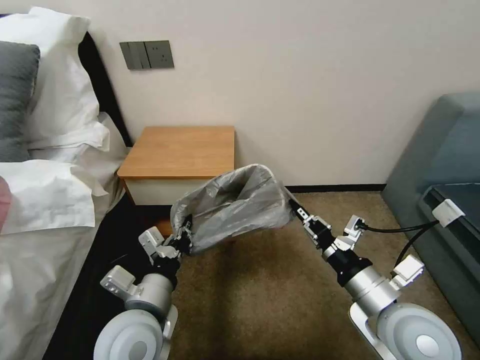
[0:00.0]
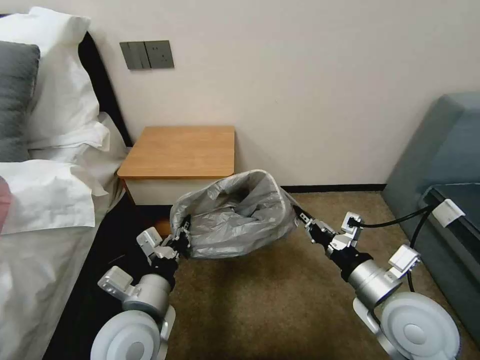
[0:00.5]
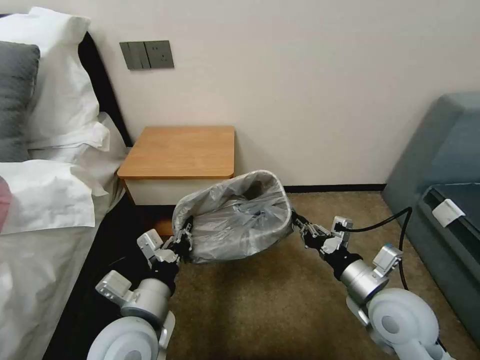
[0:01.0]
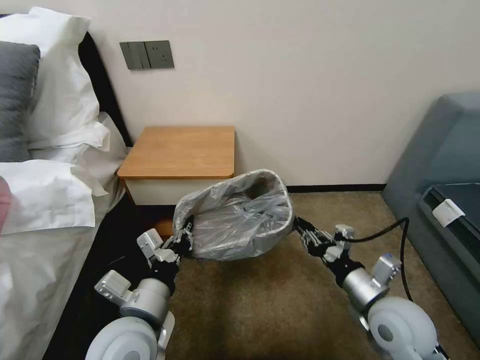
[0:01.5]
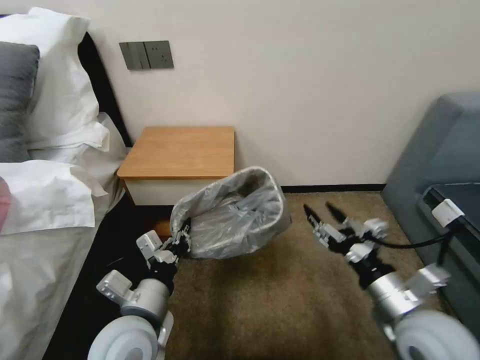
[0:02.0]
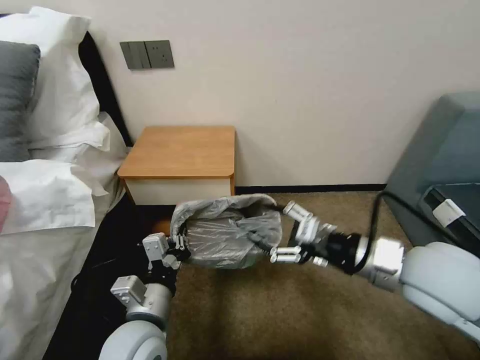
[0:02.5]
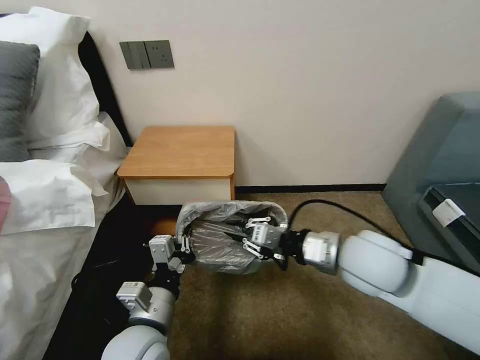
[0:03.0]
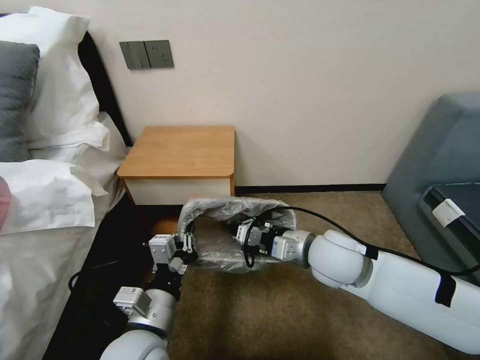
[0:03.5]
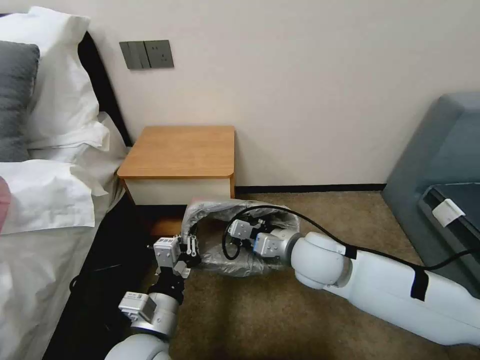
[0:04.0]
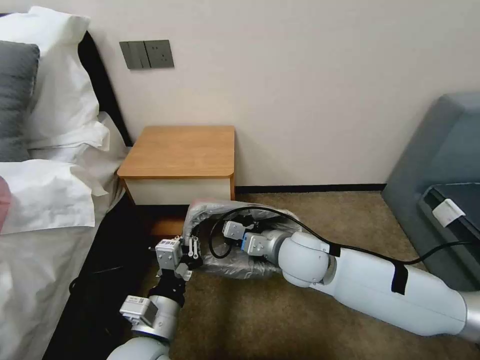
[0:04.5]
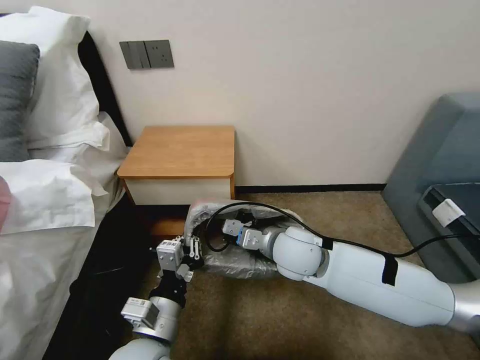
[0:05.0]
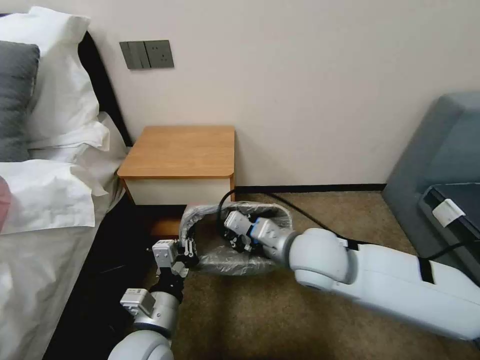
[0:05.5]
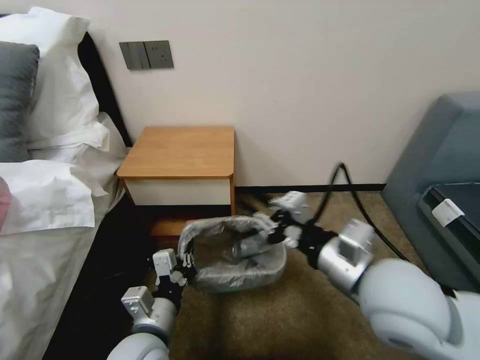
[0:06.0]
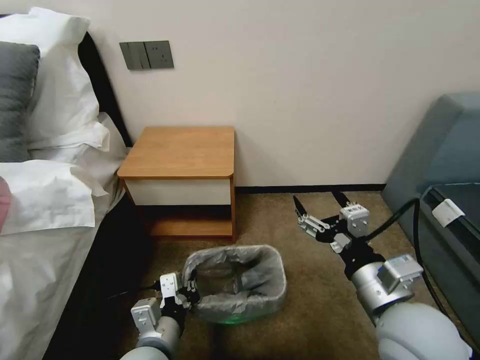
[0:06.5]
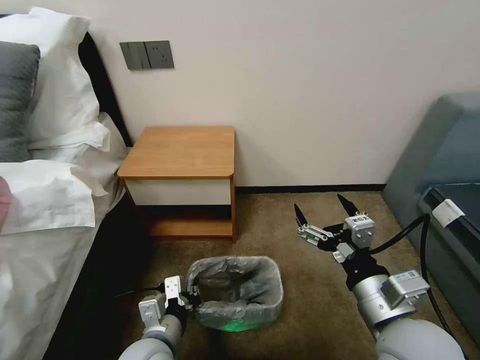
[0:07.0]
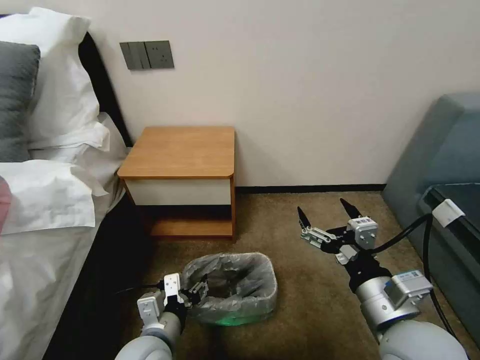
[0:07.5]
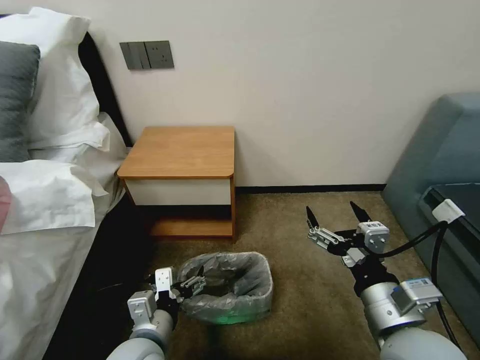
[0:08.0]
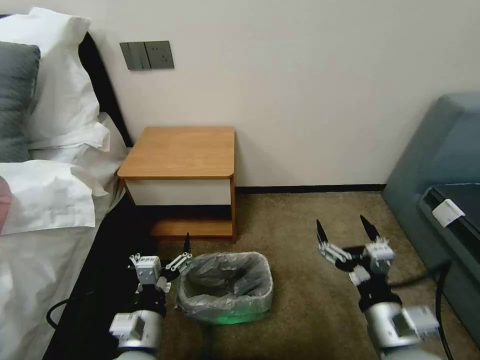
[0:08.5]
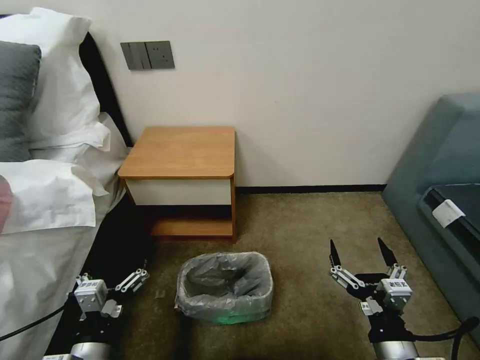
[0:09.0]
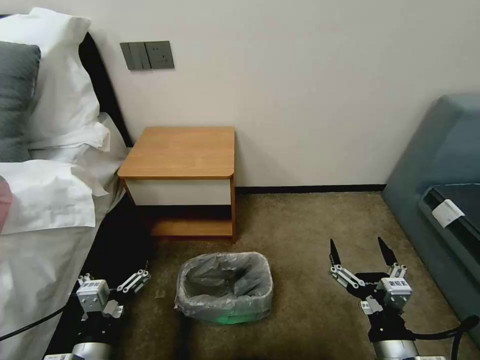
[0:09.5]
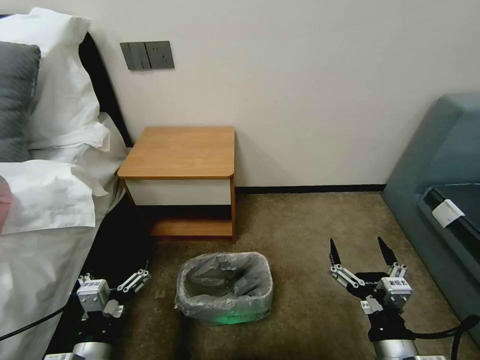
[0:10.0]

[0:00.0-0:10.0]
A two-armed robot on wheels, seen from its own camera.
Task of the whole recording: Pick up the garbage bag from the table and place it over the trash can.
0:00.0 to 0:02.0: The right gripper opens its fingers.
0:02.0 to 0:04.0: The right gripper goes approximately 20 cm to the left and forward, and closes up.
0:04.0 to 0:06.0: The right gripper heads backward, upward and to the right, covering about 15 cm.
0:06.0 to 0:08.0: The right gripper is displaced downward and backward by approximately 10 cm, and opens its fingers, while the left gripper opens its fingers.
0:08.0 to 0:10.0: The left gripper travels to the left and backward by roughly 10 cm, while the right gripper travels downward and backward by approximately 10 cm.

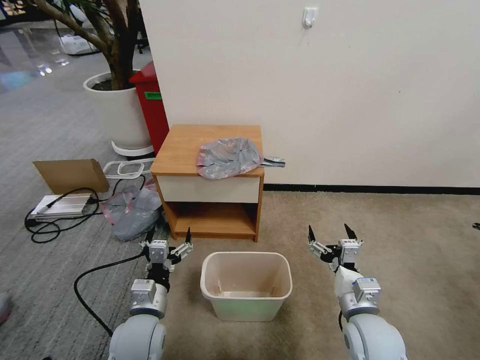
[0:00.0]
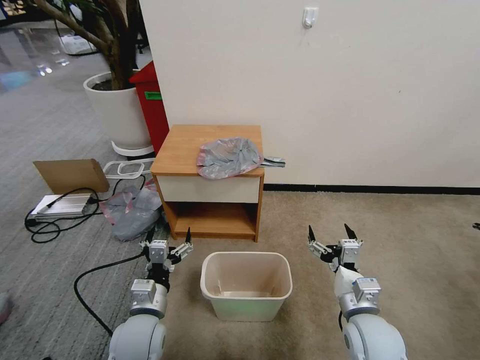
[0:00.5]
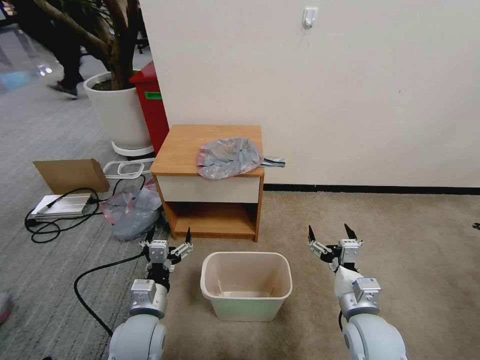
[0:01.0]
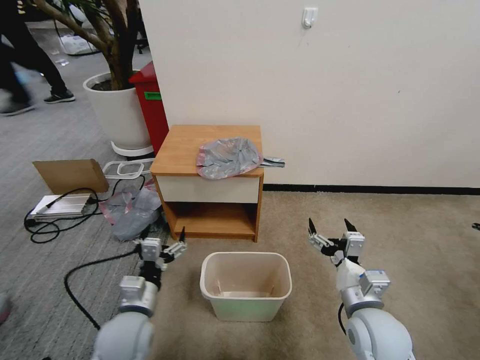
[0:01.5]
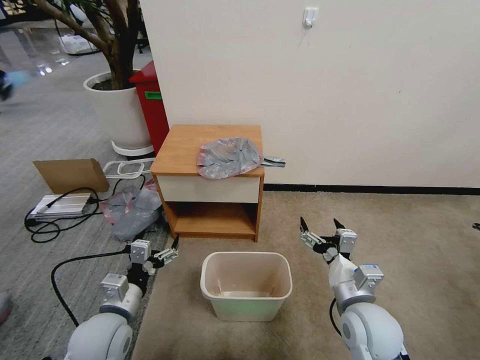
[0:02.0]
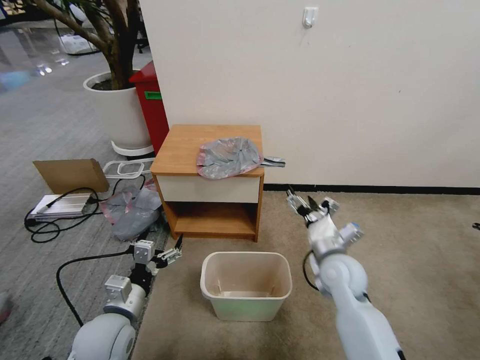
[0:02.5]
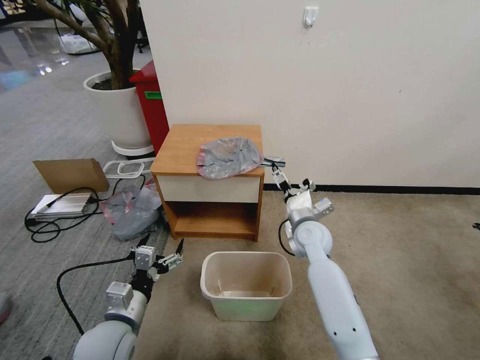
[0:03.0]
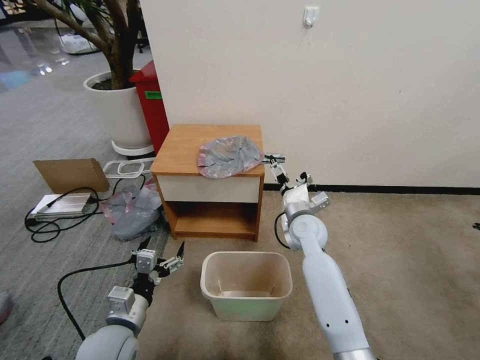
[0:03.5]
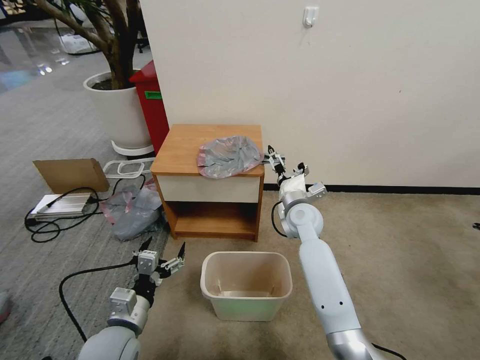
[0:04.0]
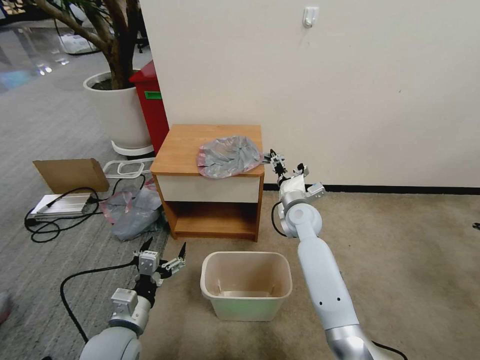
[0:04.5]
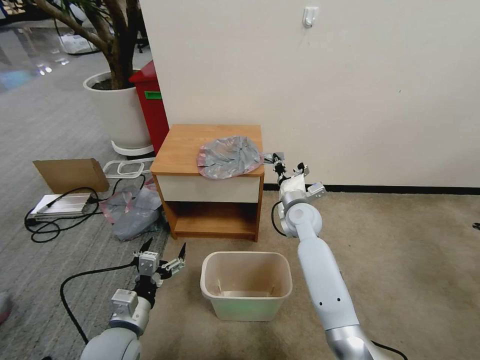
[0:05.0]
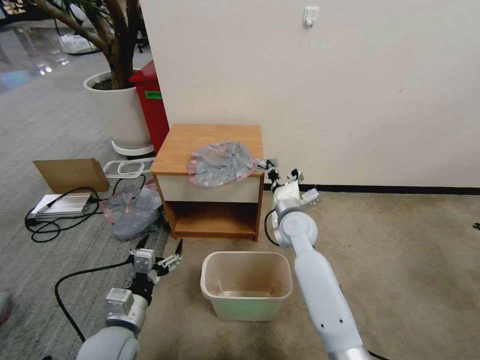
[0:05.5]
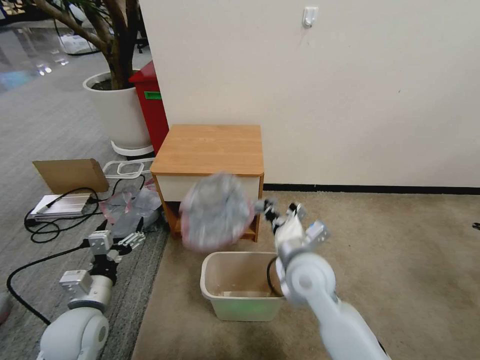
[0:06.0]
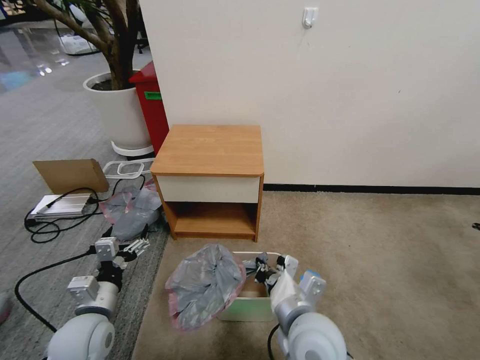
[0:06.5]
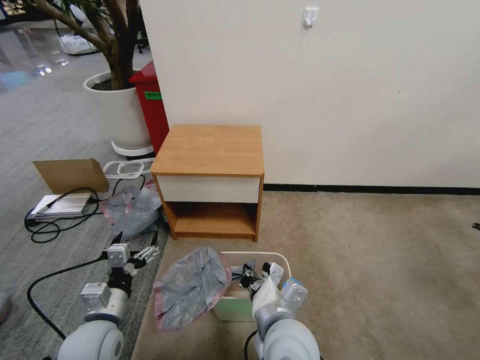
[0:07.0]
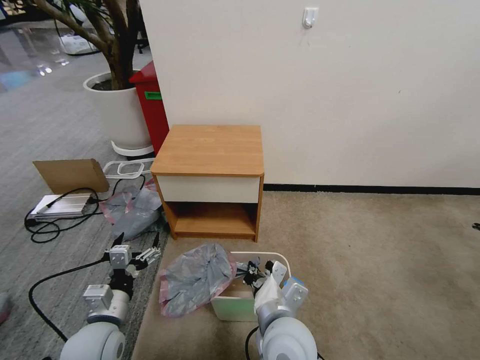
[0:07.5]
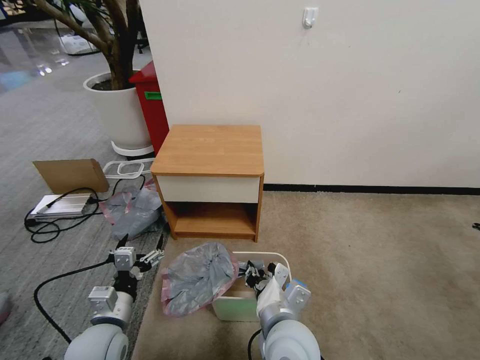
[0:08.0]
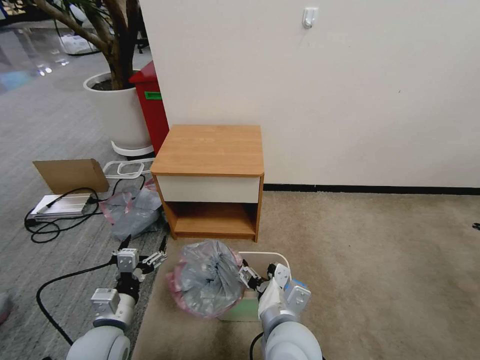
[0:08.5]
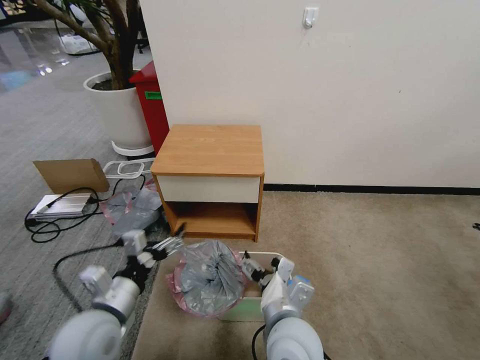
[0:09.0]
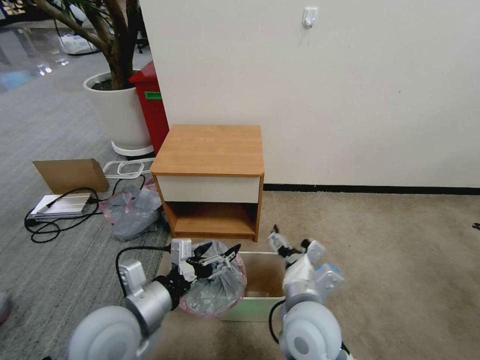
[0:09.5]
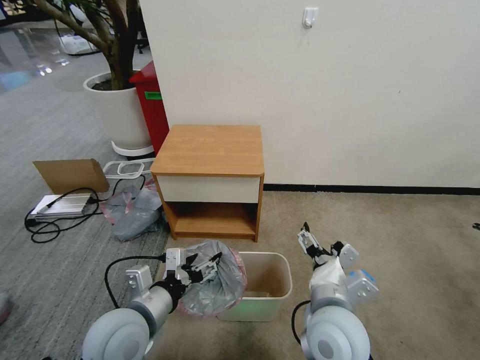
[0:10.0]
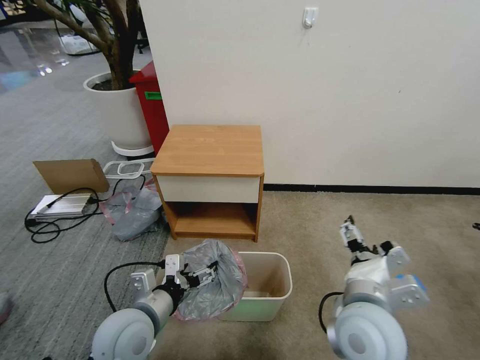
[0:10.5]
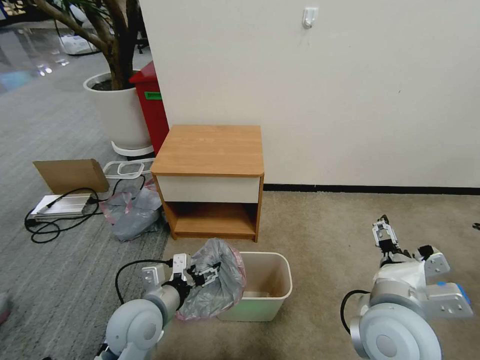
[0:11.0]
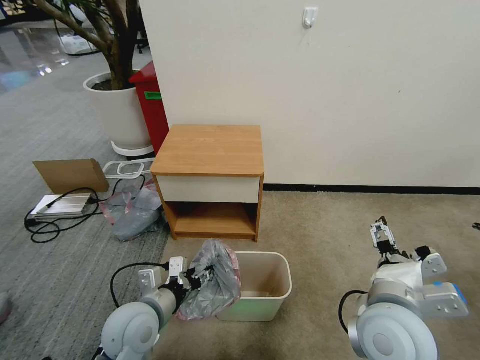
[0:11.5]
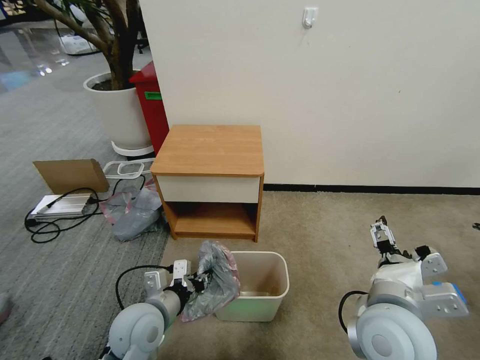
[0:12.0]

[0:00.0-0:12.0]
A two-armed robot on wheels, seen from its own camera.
Task of the whole recording: Pick up the garbage bag from the table and place it over the trash can.
0:02.0 to 0:04.0: The right gripper travels forward by roughly 25 cm.
0:04.0 to 0:06.0: The right gripper is displaced backward by some 15 cm, and closes. Meanwhile the left gripper moves to the left, roughly 5 cm.
0:06.0 to 0:08.0: The right gripper heads backward and to the left, covering about 10 cm. The left gripper shifts by some 5 cm.
0:08.0 to 0:10.0: The left gripper goes about 10 cm upward and to the right; the right gripper heads to the right, covering approximately 5 cm, and opens.
0:10.0 to 0:12.0: The left gripper is displaced downward by approximately 5 cm, and closes, while the right gripper heads to the right, covering approximately 5 cm.

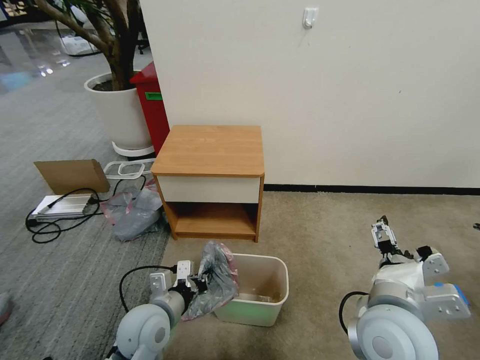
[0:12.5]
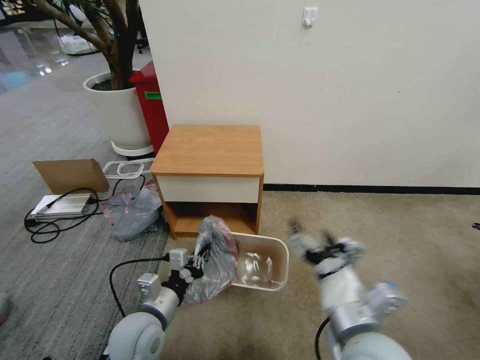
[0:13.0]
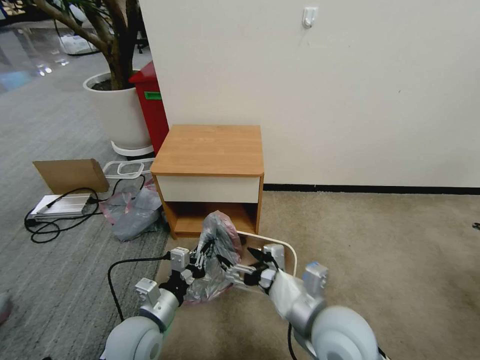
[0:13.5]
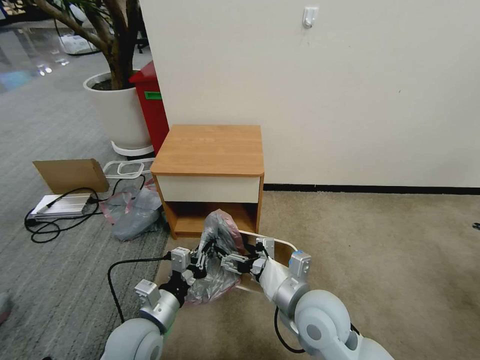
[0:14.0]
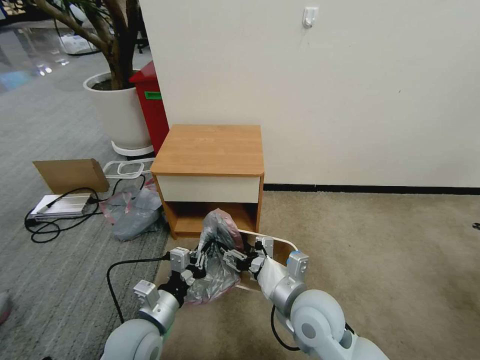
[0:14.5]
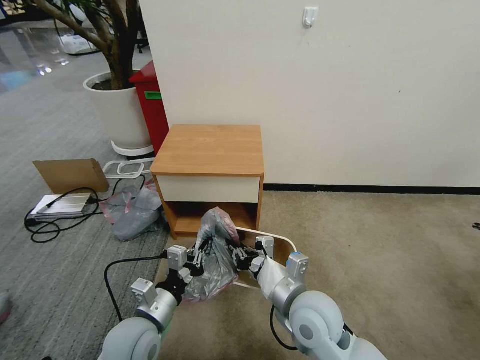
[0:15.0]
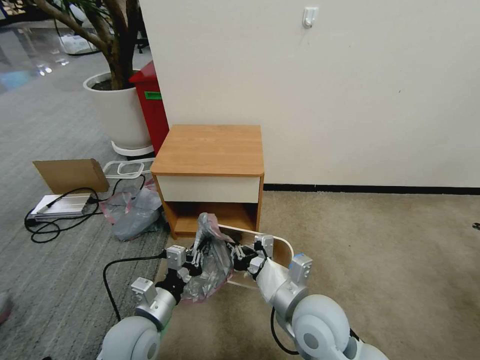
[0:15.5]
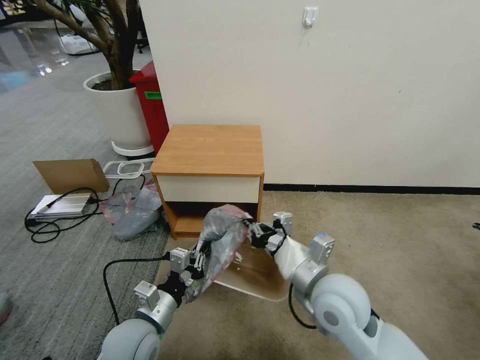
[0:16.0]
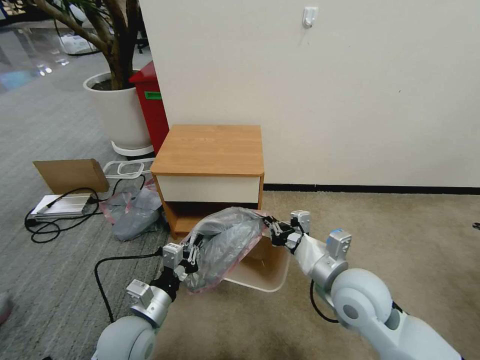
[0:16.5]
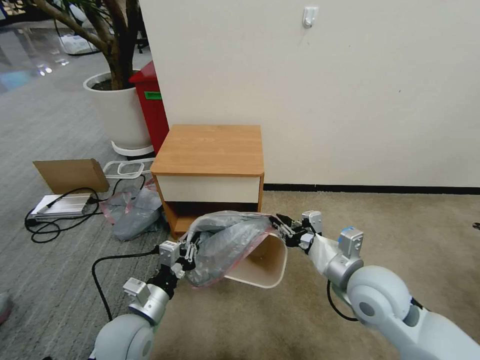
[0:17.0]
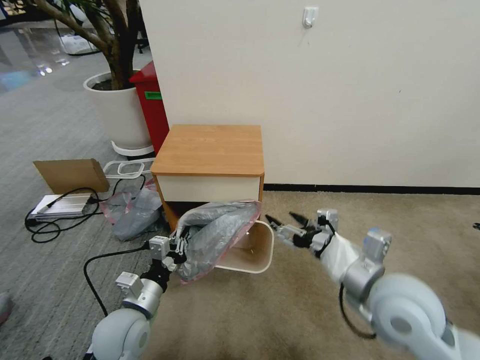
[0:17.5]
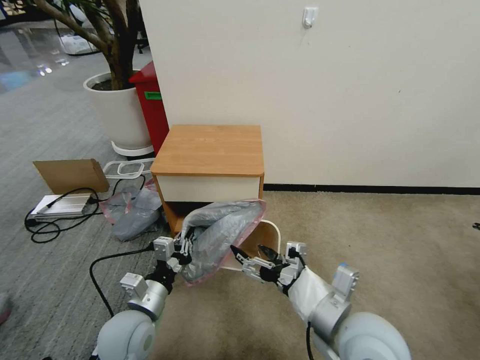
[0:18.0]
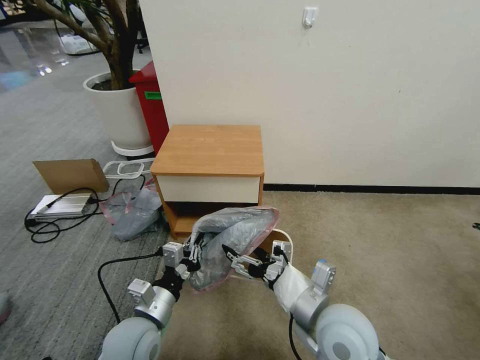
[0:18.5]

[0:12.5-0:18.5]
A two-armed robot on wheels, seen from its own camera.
Task of the whole recording: Pick up the garbage bag from the table and place it over the trash can.
0:12.5 to 0:14.5: The right gripper goes some 10 cm to the left and downward.
0:14.5 to 0:16.5: The right gripper shifts about 5 cm to the right, and closes.
0:16.5 to 0:18.5: The right gripper is displaced backward by about 5 cm, and opens its fingers.
